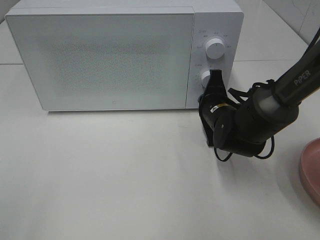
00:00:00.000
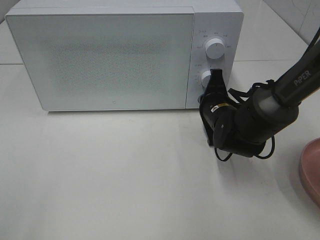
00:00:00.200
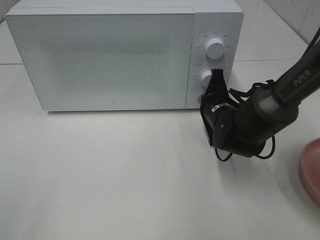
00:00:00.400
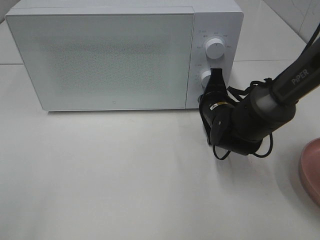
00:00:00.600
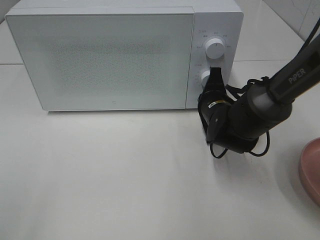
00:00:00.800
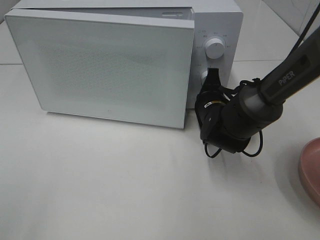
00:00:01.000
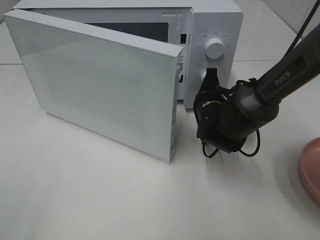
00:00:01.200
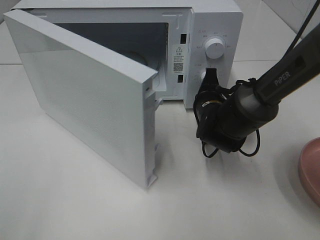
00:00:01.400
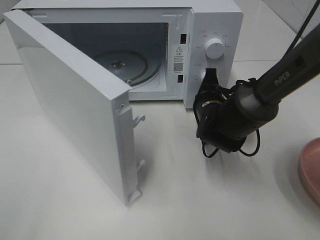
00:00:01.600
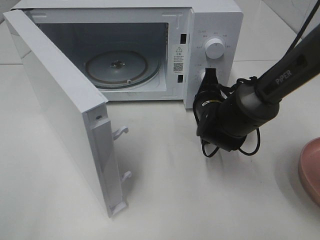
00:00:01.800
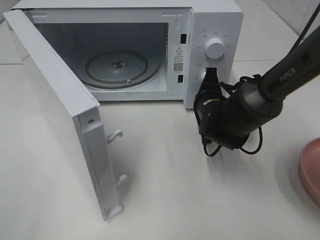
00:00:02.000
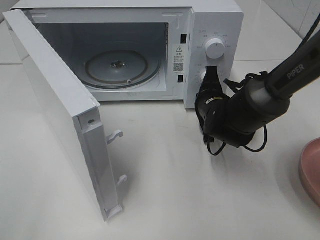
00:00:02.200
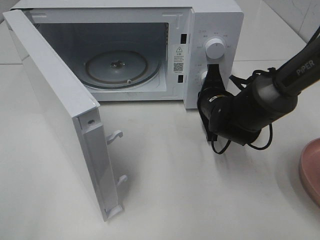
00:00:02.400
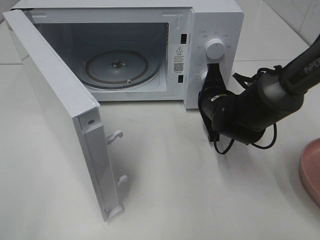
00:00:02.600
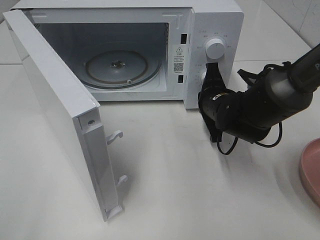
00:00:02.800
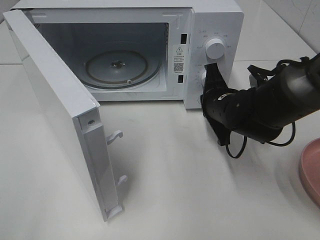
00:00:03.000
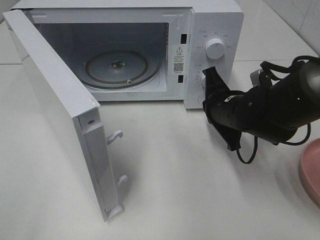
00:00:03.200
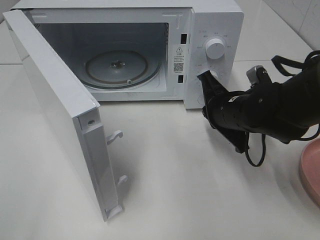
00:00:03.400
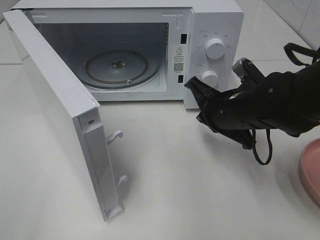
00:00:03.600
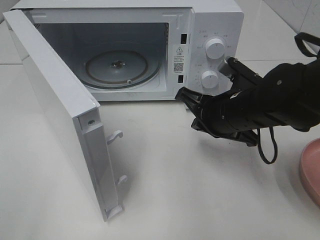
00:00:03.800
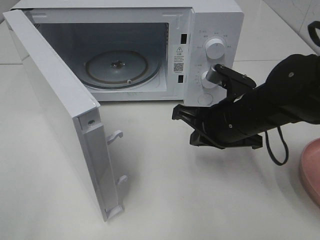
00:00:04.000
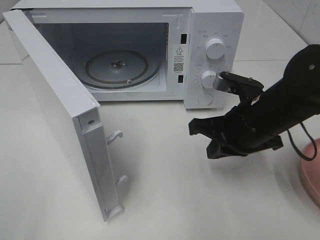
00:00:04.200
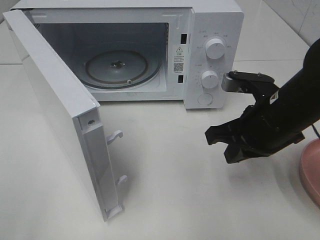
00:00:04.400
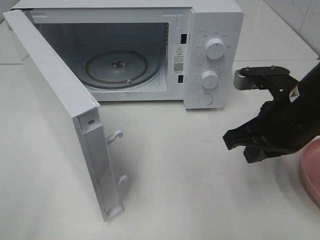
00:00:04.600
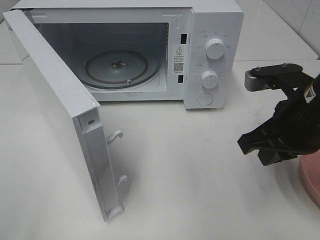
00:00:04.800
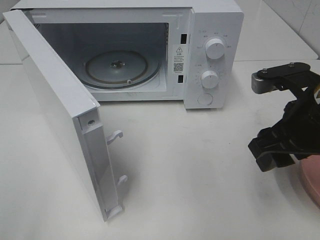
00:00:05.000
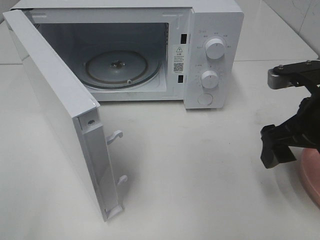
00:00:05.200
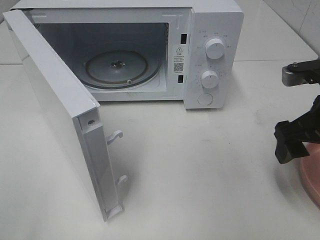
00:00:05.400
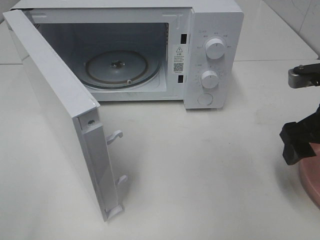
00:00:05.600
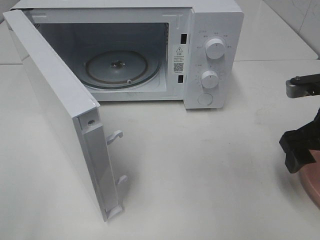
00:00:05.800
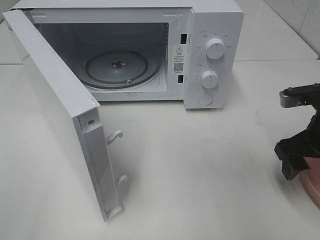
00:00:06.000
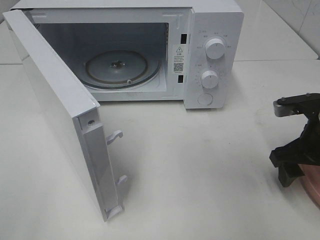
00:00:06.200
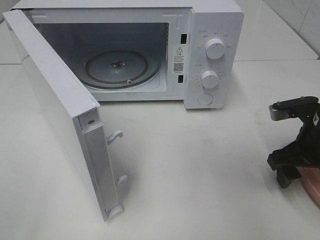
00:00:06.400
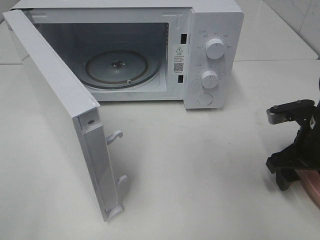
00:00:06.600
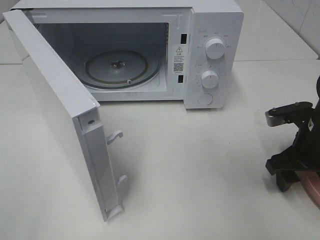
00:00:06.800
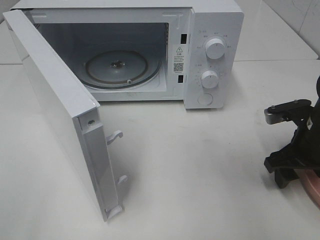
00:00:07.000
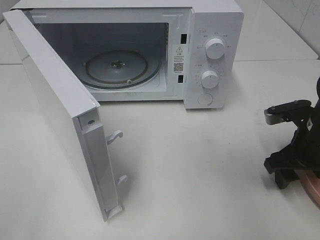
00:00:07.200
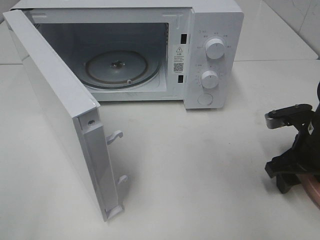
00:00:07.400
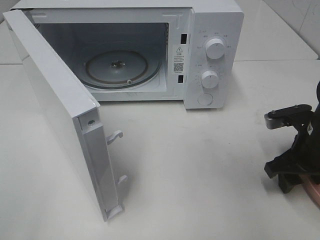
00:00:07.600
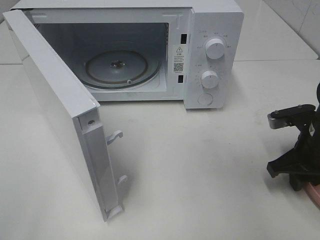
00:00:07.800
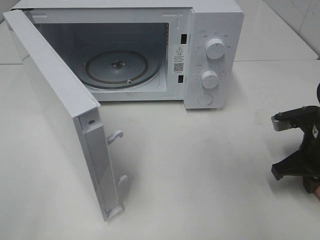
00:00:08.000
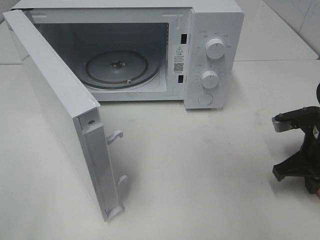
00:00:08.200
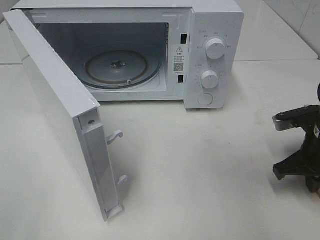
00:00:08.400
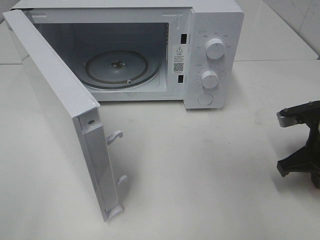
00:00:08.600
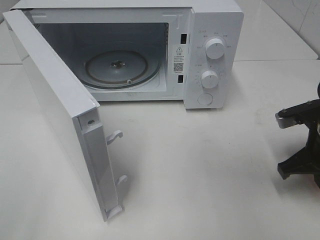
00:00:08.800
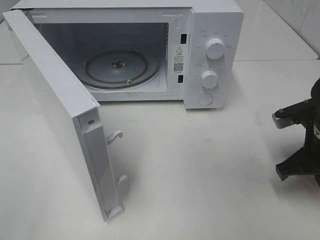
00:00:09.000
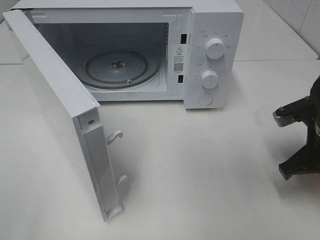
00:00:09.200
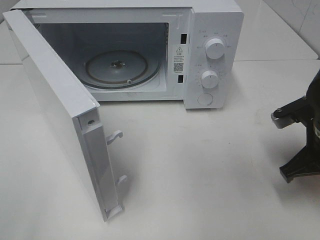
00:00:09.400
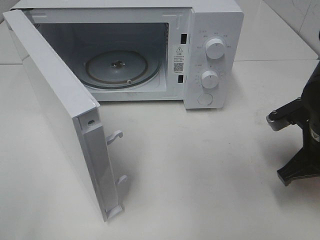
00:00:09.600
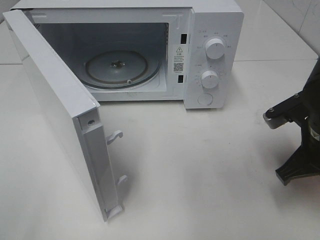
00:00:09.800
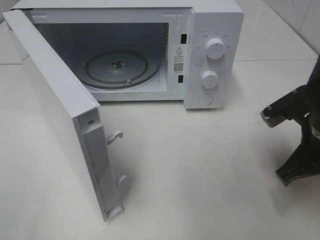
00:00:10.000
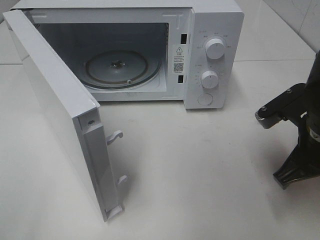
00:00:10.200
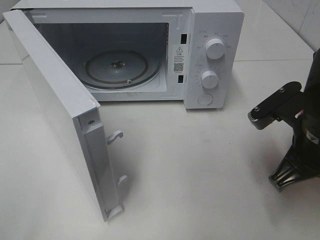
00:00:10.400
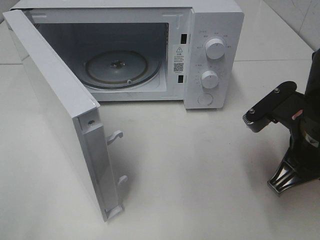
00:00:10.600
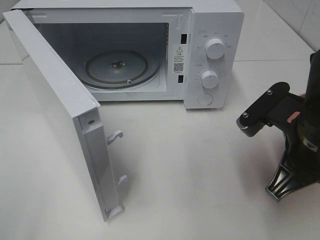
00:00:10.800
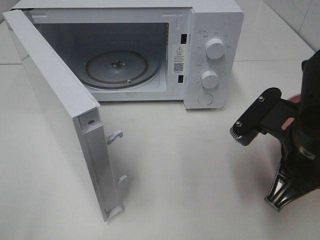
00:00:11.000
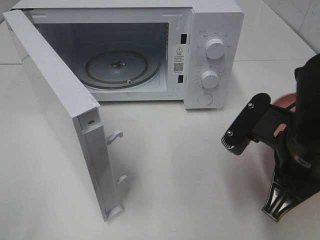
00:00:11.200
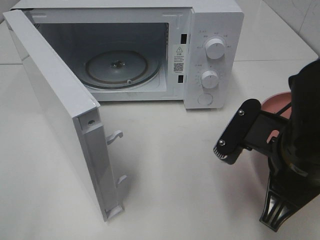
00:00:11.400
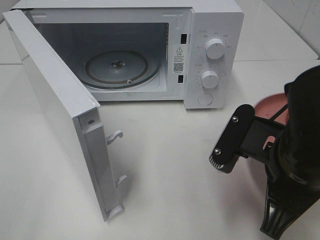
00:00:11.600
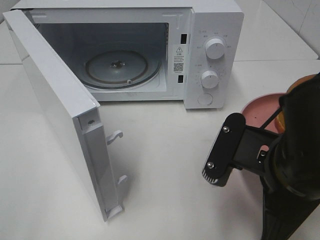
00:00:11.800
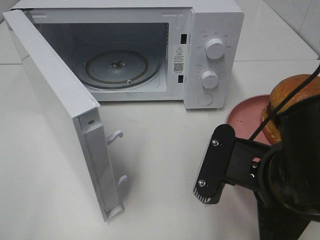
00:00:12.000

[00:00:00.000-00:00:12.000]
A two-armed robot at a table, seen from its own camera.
Task of the whole recording: Heat the burger.
Step, 00:00:00.000 to 00:00:02.800: Right hand: press the switch.
Step, 00:00:03.000 to 00:00:08.000: Right hand: grab the plate with the hamburger.
00:00:03.000 to 00:00:04.400: The right gripper moves backward and upward, approximately 10 cm.
00:00:04.400 to 00:00:06.000: The right gripper goes roughly 10 cm to the right, and opens its fingers.
00:00:06.000 to 00:00:07.600: The right gripper heads downward, covering about 5 cm.
00:00:07.600 to 00:00:09.000: The right gripper closes.
00:00:09.000 to 00:00:10.400: The right gripper travels to the left by about 5 cm.
00:00:10.400 to 00:00:12.000: The right gripper heads backward and to the left, covering approximately 10 cm.

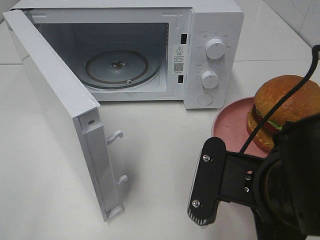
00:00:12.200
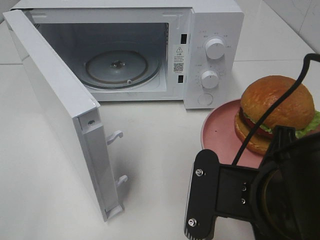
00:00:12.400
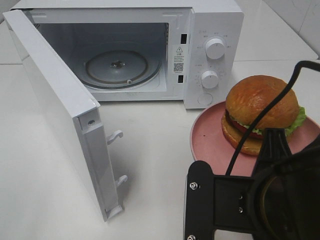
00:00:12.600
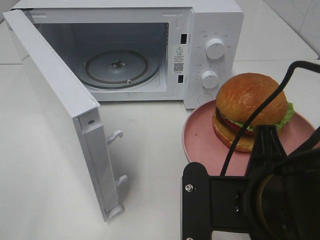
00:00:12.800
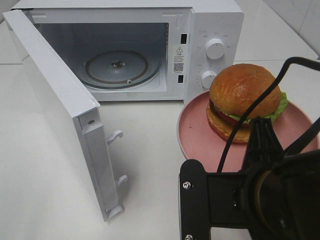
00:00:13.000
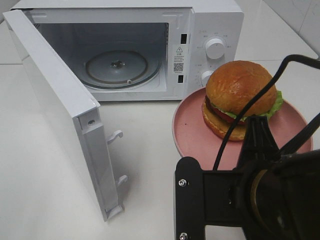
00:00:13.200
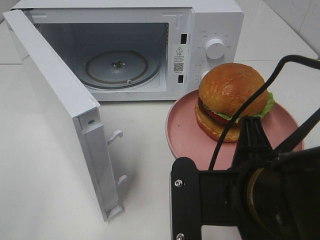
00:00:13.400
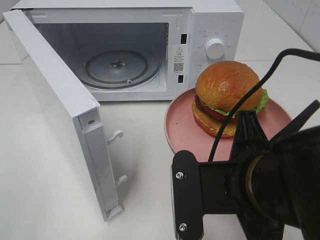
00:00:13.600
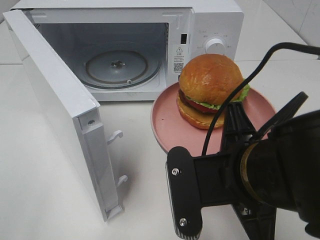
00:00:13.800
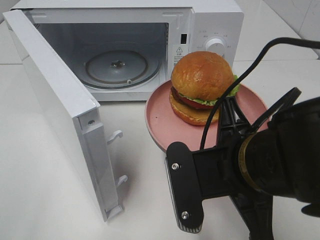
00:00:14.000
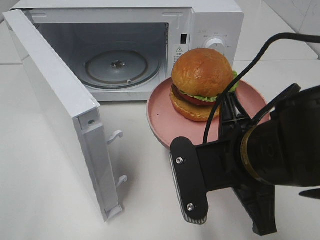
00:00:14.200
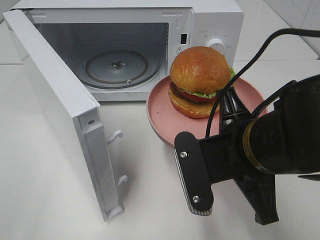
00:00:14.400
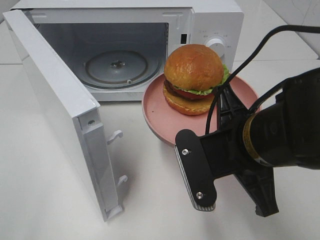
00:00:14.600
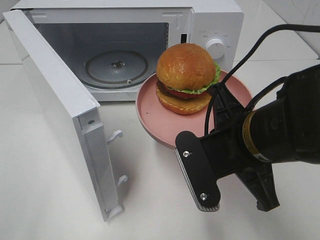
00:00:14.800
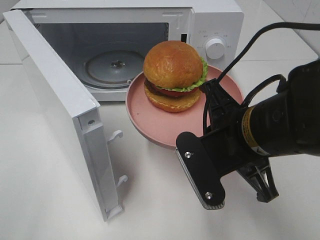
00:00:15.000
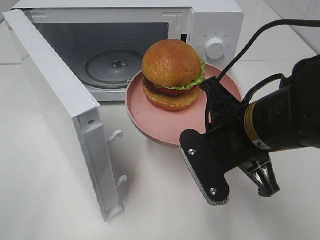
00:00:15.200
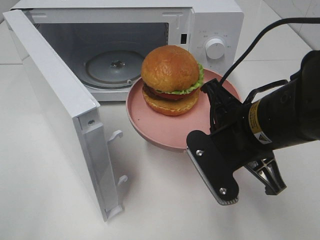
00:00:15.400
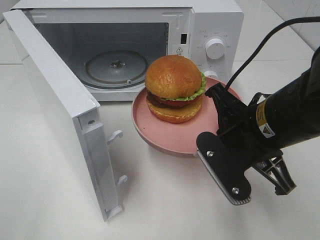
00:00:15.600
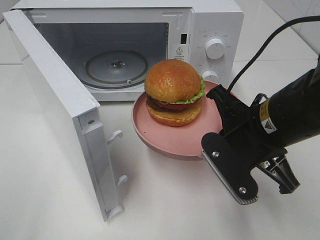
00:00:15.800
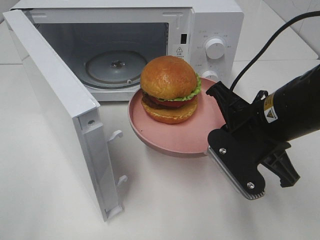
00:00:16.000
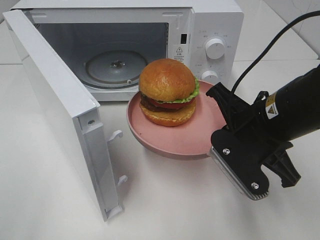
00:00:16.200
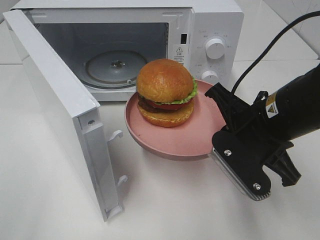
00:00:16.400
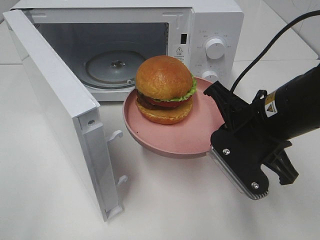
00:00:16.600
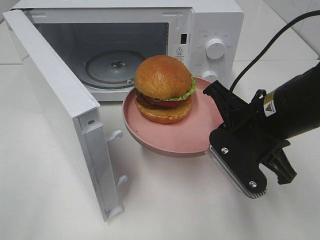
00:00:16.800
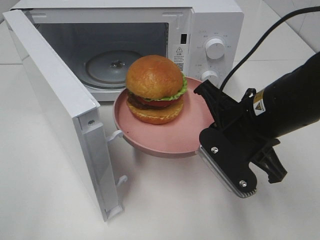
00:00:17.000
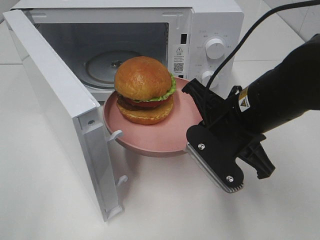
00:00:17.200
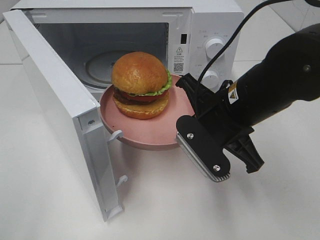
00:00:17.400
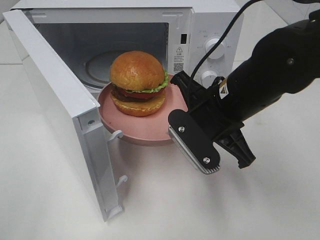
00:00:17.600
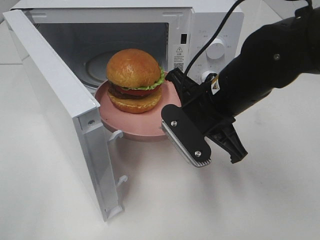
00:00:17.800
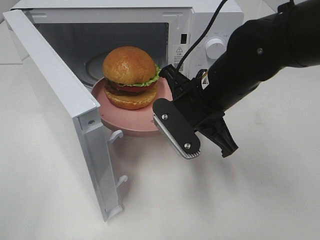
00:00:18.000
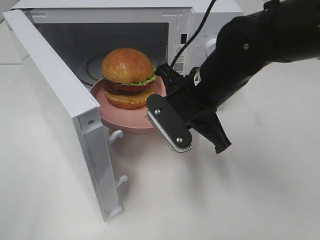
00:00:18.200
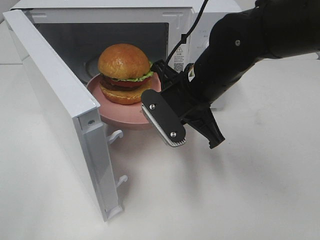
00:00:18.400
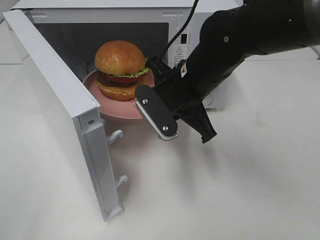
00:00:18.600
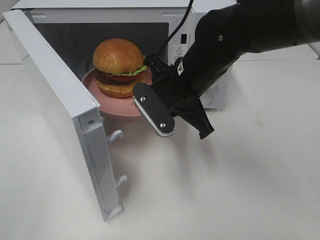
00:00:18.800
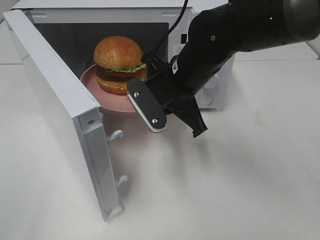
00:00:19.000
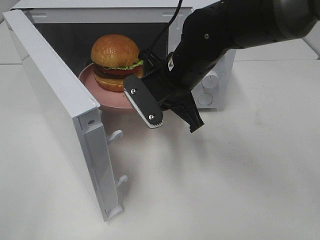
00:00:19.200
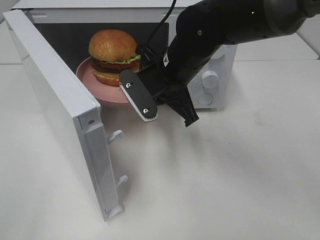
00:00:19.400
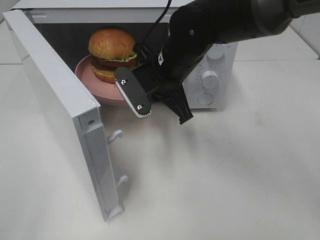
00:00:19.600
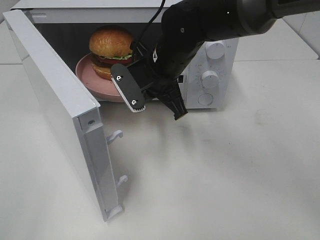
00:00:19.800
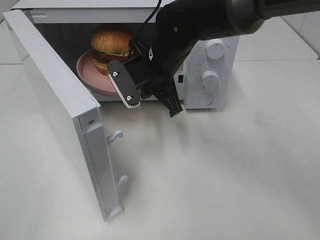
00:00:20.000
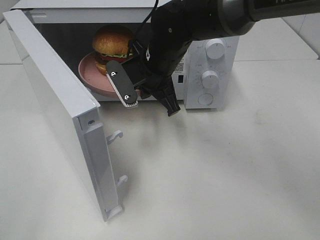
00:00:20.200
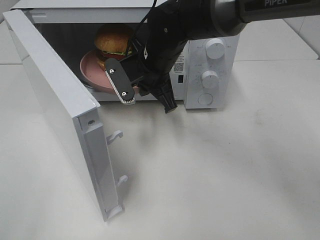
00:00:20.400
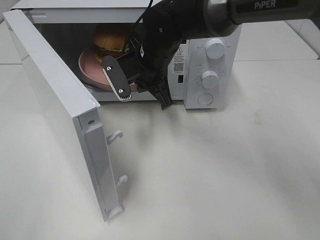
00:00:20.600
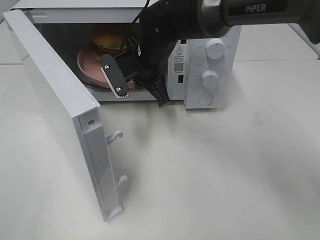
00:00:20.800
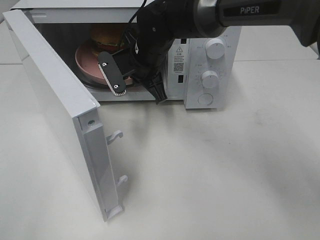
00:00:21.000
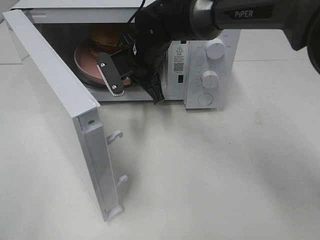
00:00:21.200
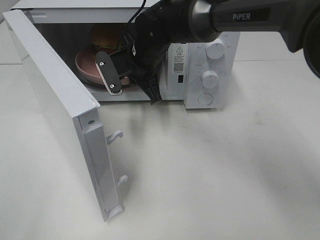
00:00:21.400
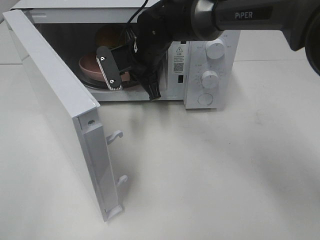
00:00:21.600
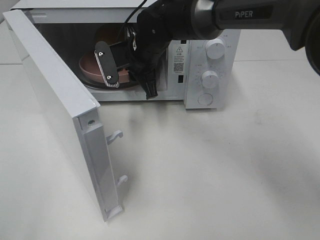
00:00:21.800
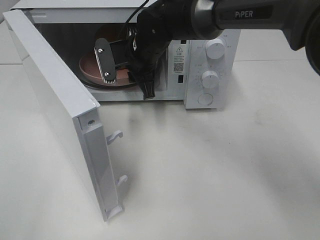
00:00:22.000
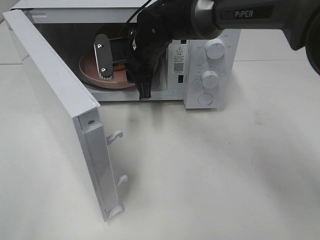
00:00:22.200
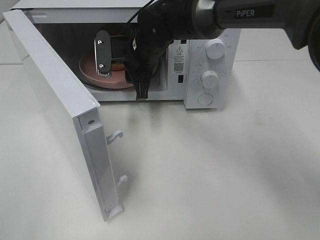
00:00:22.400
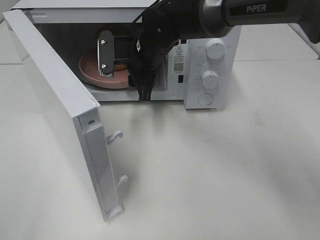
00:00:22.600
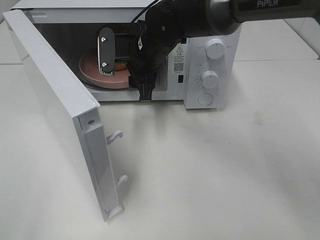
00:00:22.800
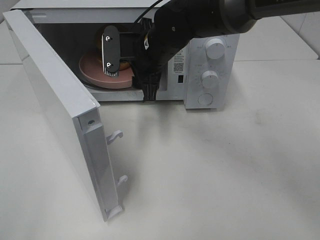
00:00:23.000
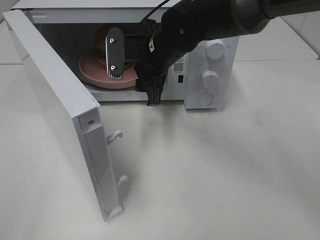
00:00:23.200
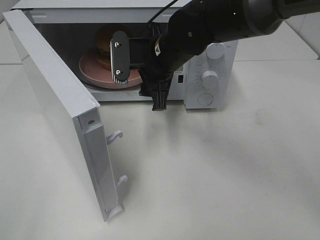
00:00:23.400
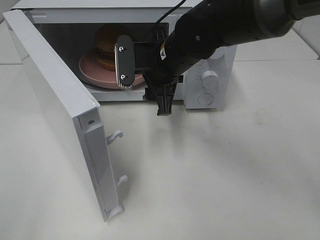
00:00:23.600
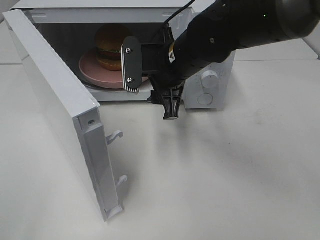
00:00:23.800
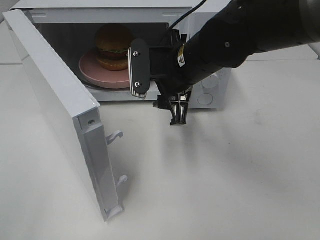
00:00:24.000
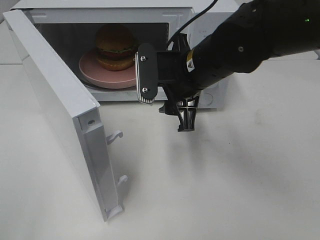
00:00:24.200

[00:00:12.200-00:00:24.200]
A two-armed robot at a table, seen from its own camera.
Task of the whole recording: Heat the burger.
Step, 00:00:12.200 to 00:00:22.400: Right hand: place the plate in the microwave.
00:00:13.800 to 00:00:15.200: The right gripper goes approximately 5 cm forward.
00:00:15.200 to 00:00:16.600: The grippers move only a little.
00:00:16.600 to 00:00:18.200: The right gripper is displaced to the left and forward by some 10 cm.
00:00:18.200 to 00:00:19.800: The right gripper travels forward and to the left by some 10 cm.
00:00:19.800 to 00:00:21.200: The right gripper shifts about 5 cm forward.
00:00:21.200 to 00:00:22.600: The right gripper opens its fingers.
00:00:22.600 to 00:00:24.200: The right gripper moves backward and to the right, approximately 10 cm.
